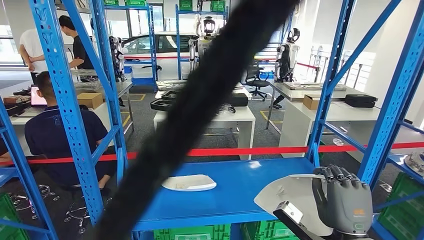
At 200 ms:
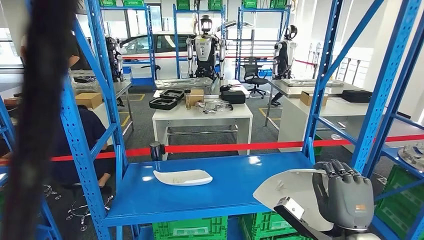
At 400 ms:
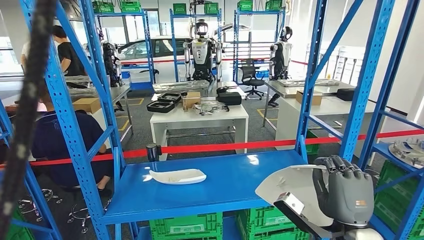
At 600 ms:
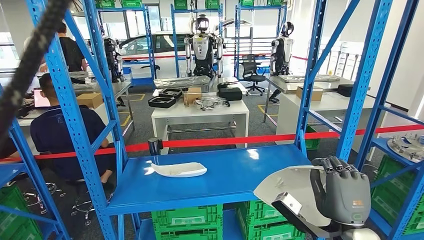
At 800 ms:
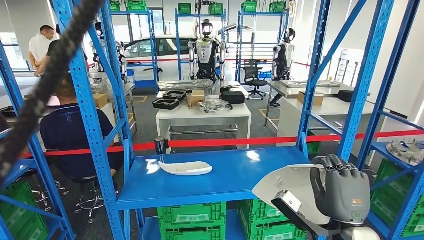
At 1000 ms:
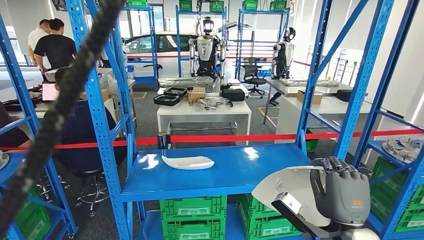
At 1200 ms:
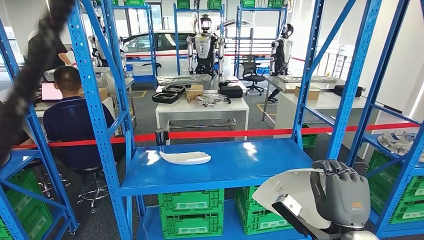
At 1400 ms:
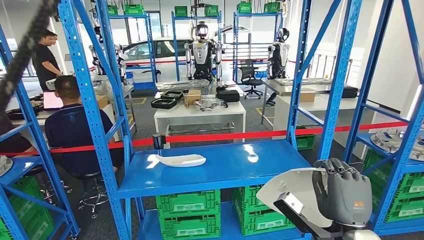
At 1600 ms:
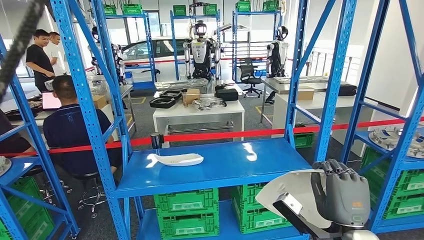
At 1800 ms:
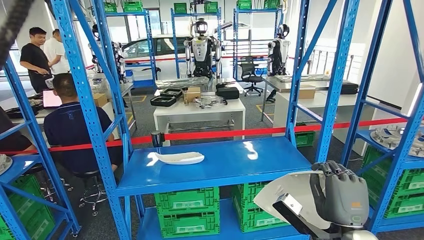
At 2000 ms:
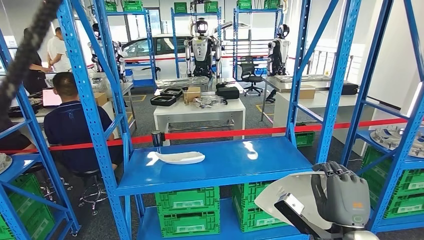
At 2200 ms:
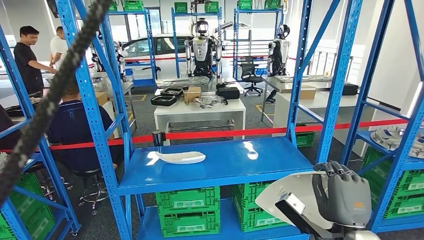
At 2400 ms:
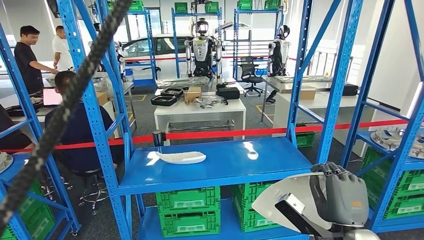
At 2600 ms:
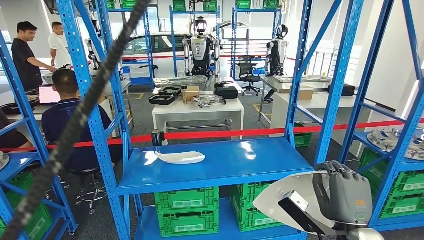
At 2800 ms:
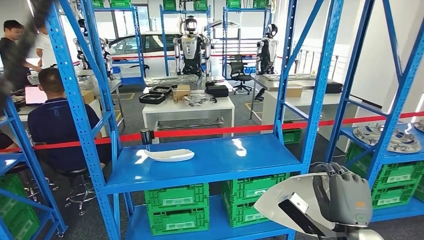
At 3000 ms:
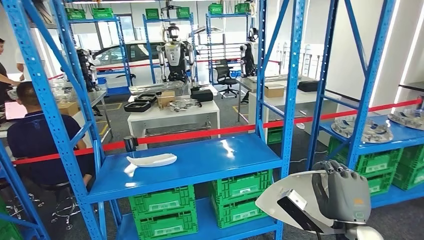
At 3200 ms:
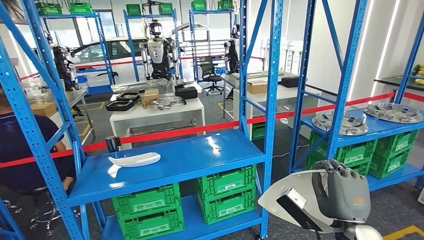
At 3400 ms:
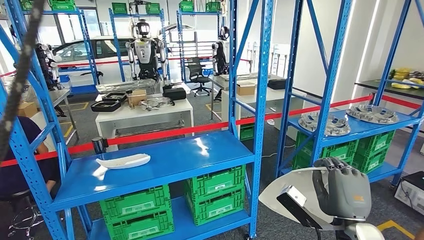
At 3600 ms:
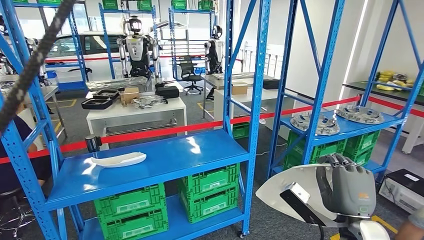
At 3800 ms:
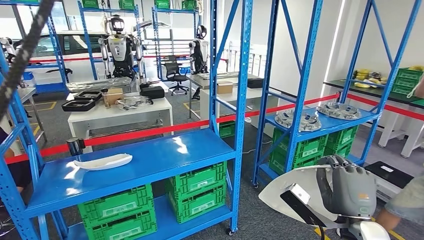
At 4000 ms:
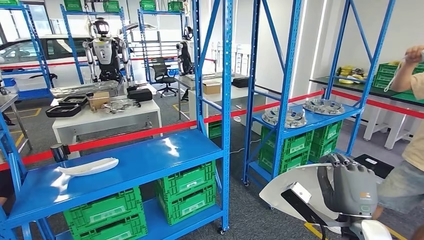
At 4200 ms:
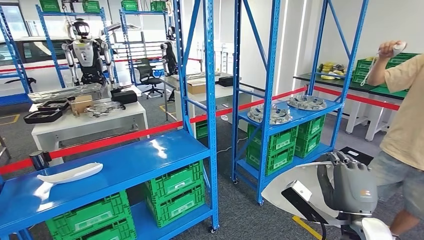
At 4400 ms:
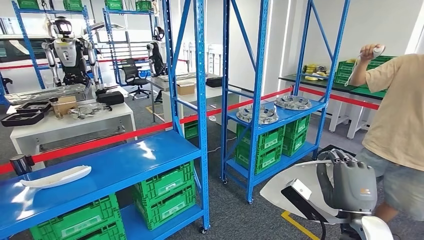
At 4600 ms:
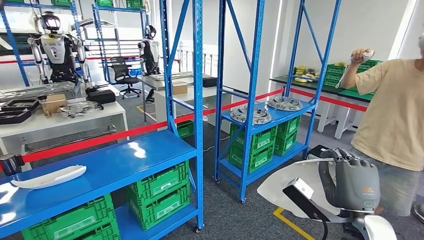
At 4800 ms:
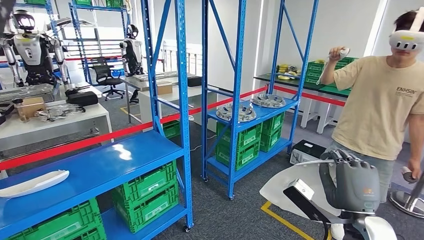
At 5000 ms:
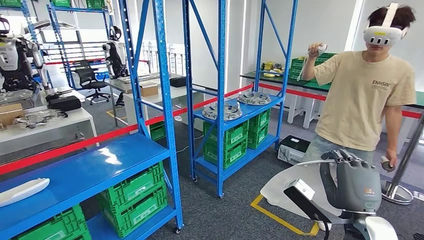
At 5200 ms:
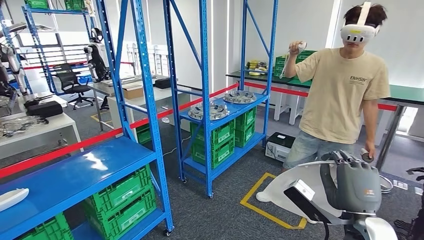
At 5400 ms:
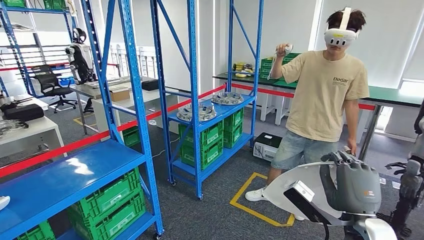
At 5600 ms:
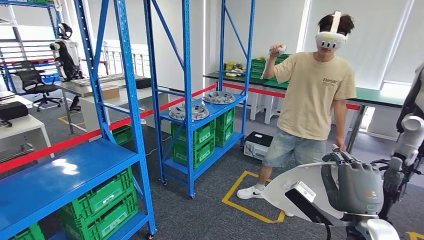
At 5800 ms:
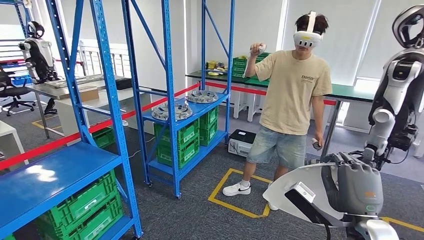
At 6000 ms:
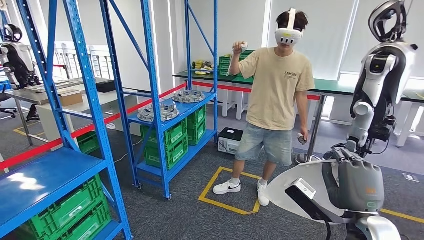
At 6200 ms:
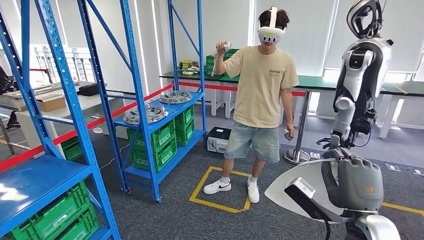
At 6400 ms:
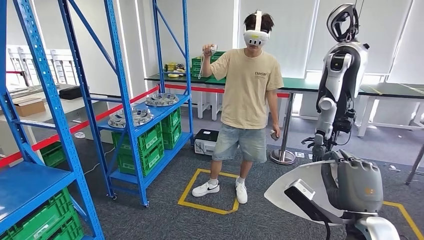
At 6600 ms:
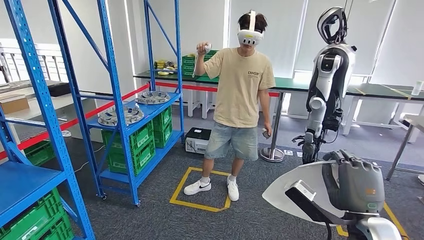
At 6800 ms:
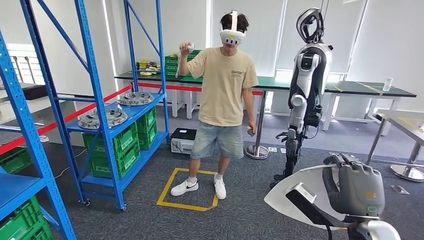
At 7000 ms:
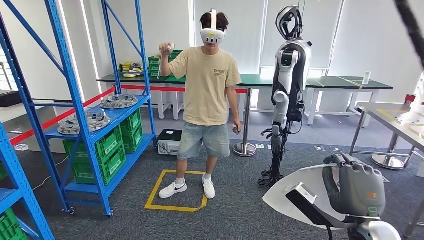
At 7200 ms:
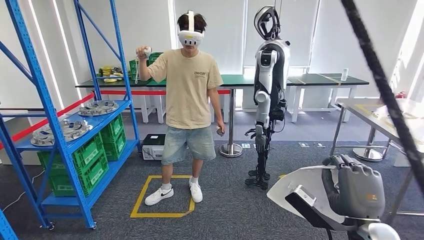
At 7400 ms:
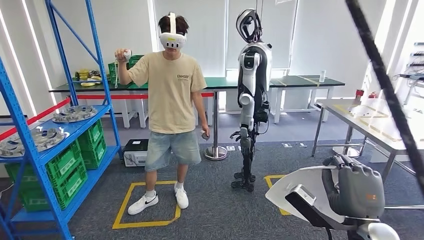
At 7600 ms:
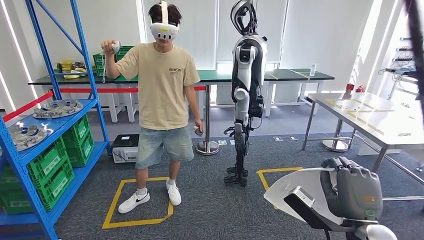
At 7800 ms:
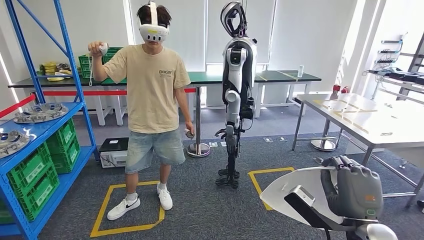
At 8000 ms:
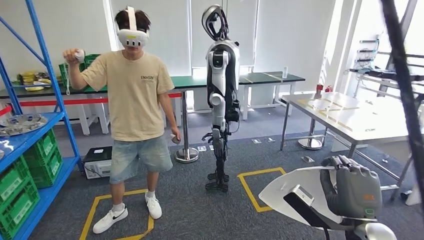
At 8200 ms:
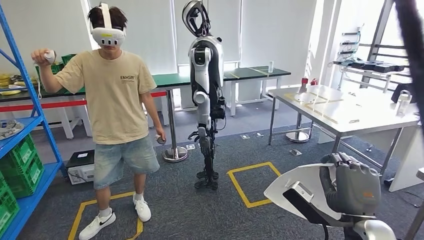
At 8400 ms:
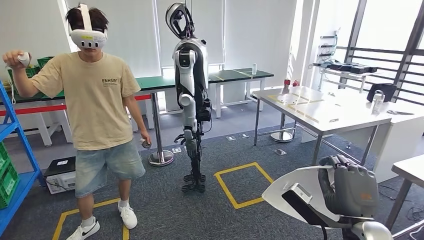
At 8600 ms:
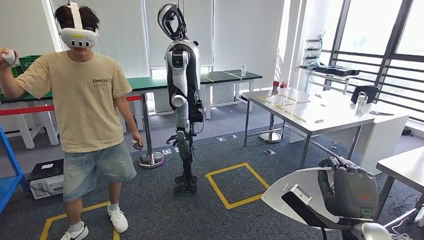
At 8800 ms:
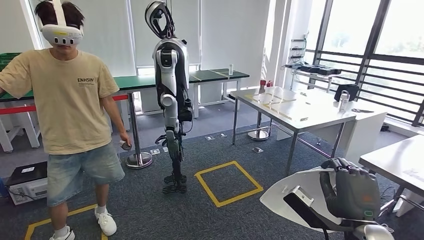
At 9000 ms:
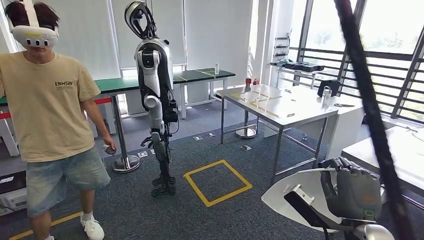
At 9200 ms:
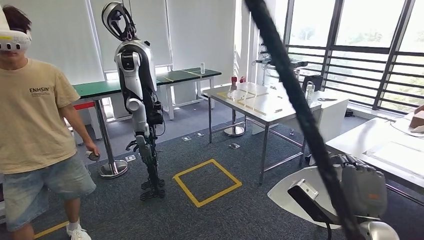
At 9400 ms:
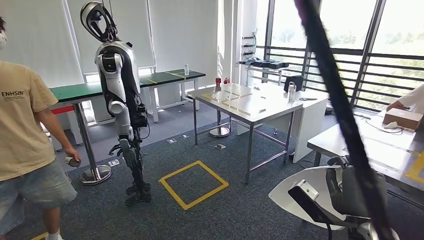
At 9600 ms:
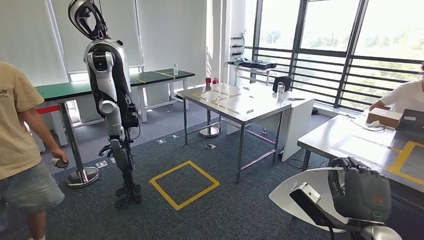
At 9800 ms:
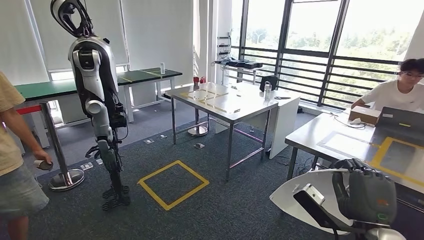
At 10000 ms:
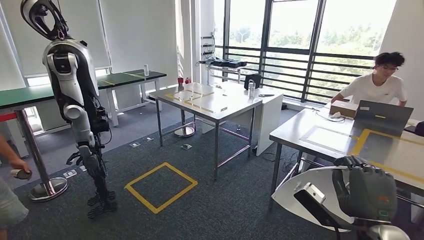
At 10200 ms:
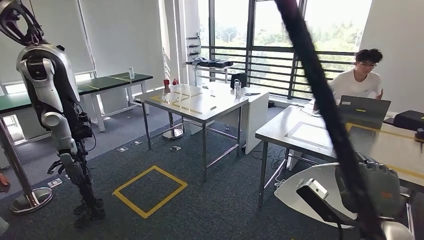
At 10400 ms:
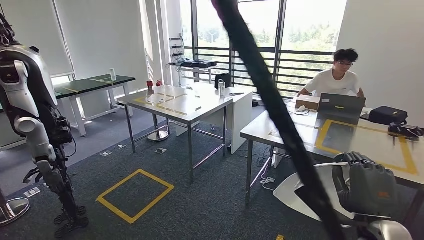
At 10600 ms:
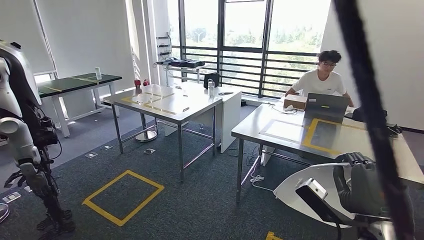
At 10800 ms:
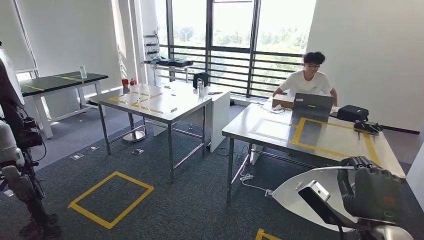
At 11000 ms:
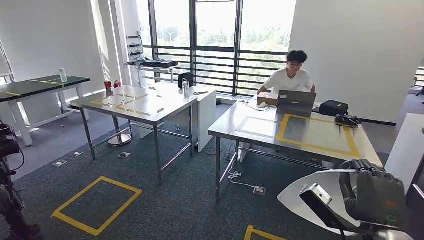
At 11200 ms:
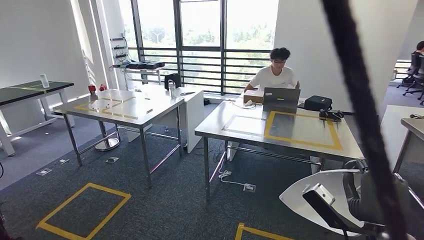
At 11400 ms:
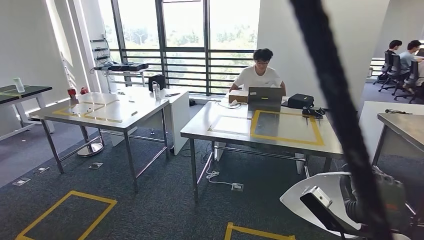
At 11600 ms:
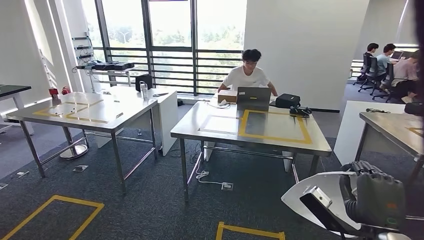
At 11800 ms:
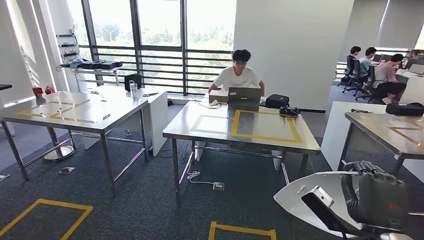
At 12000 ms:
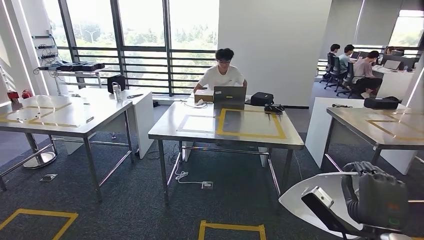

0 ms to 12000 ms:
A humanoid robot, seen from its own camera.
Step, 0 ms to 11000 ms: Bring the small component to the front of the workbench.

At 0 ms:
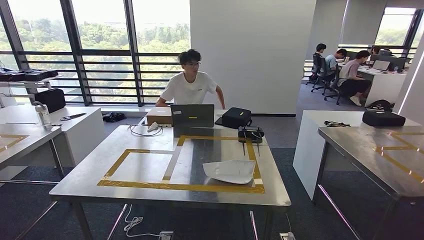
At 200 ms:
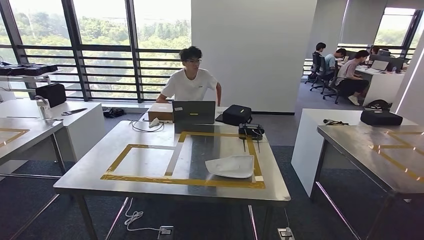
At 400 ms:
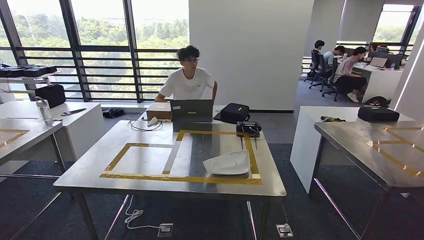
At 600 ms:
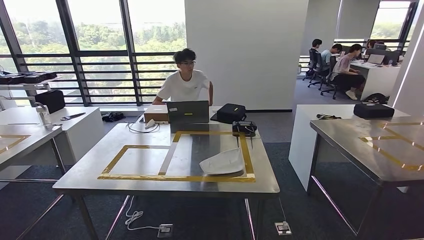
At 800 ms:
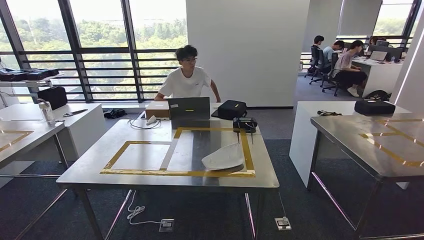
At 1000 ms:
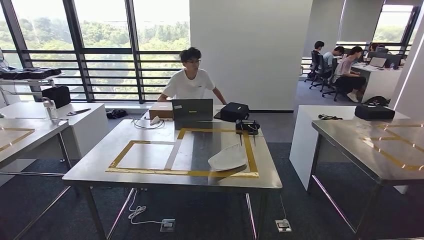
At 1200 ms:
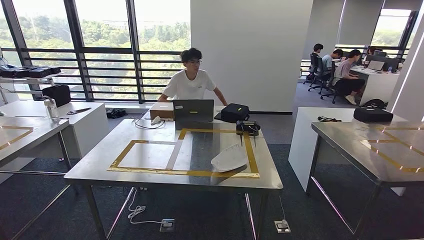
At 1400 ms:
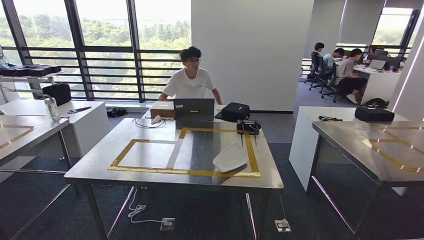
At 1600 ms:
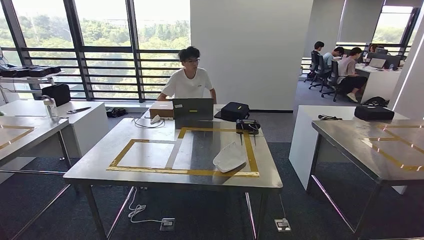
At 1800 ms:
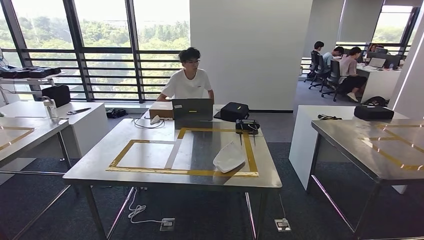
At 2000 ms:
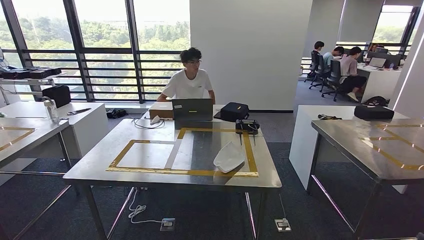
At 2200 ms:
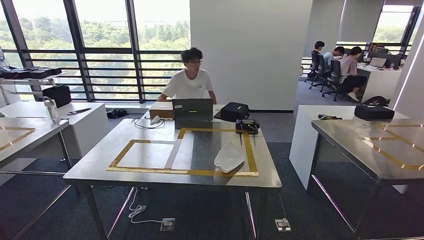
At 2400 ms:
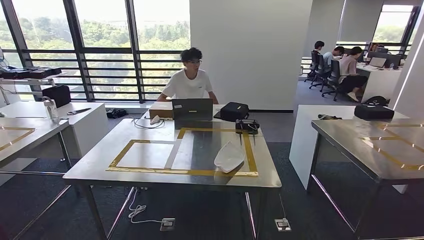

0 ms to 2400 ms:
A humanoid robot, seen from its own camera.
Step, 0 ms to 2200 ms: Move to the initial position of the workbench.
1200 ms to 2400 ms: The right hand goes some 15 cm downward and to the left.
